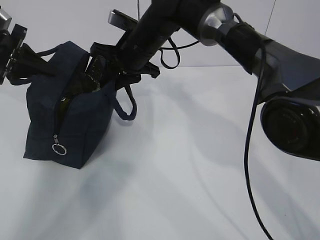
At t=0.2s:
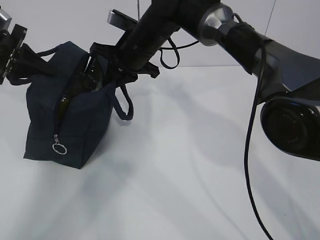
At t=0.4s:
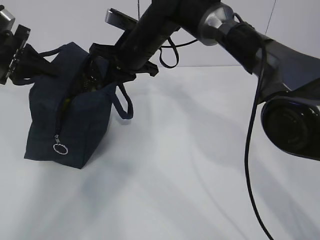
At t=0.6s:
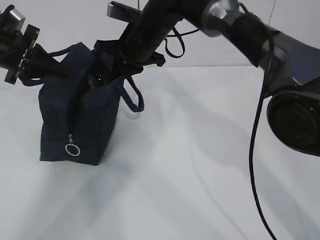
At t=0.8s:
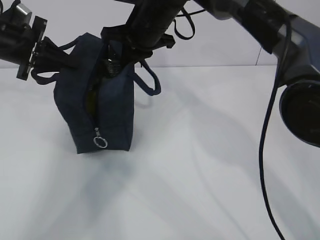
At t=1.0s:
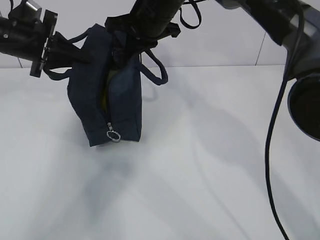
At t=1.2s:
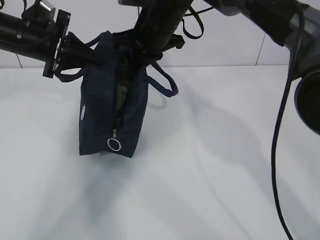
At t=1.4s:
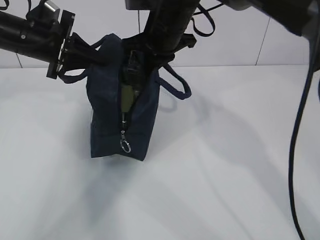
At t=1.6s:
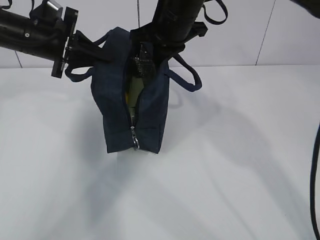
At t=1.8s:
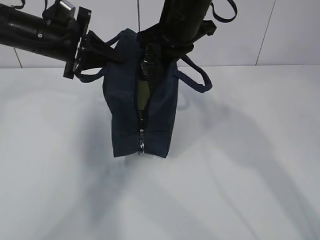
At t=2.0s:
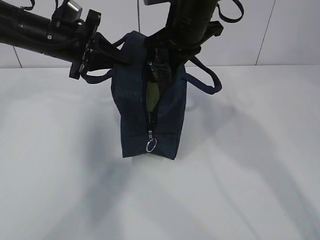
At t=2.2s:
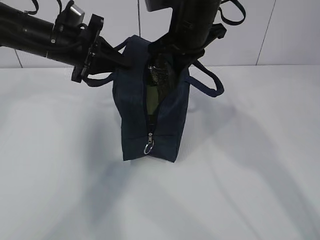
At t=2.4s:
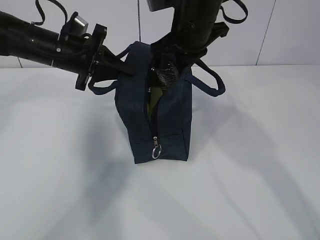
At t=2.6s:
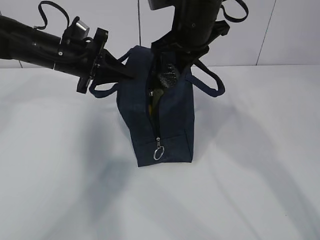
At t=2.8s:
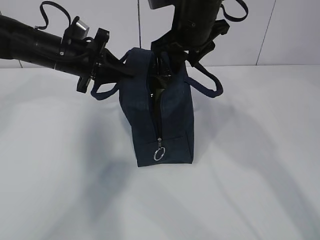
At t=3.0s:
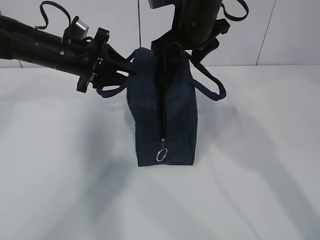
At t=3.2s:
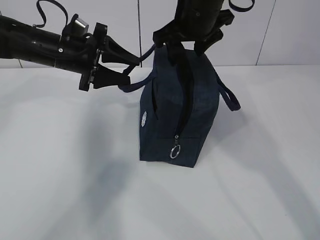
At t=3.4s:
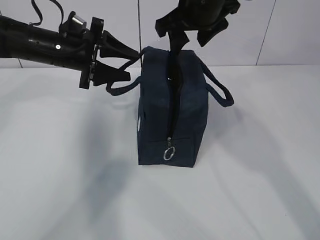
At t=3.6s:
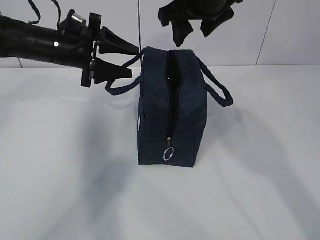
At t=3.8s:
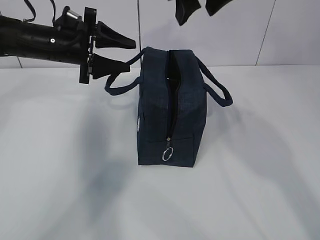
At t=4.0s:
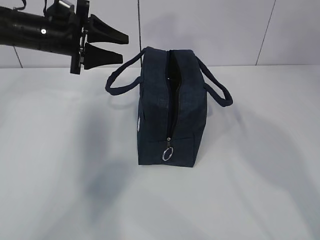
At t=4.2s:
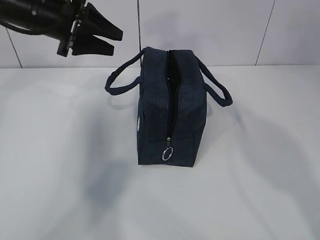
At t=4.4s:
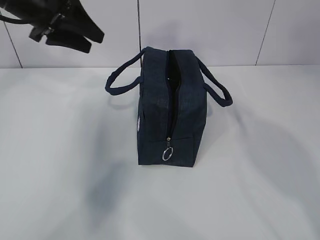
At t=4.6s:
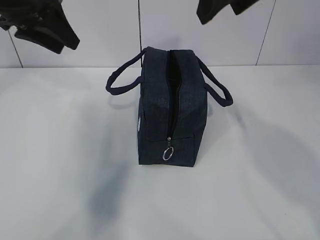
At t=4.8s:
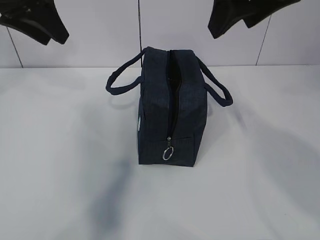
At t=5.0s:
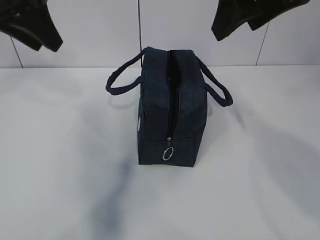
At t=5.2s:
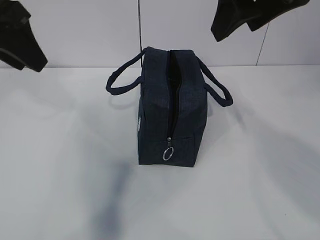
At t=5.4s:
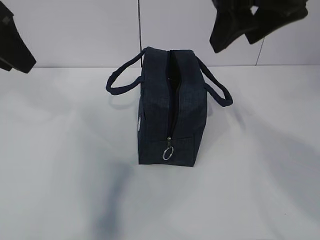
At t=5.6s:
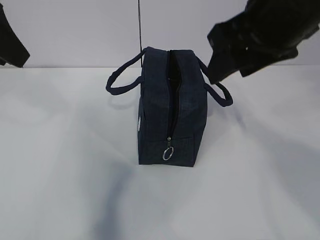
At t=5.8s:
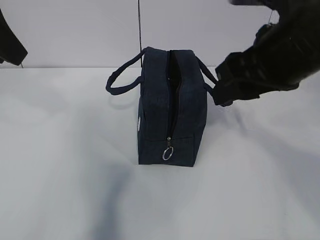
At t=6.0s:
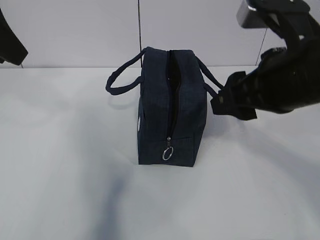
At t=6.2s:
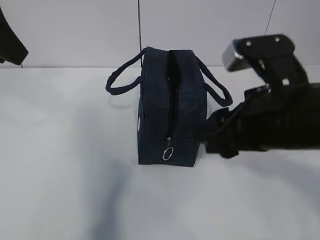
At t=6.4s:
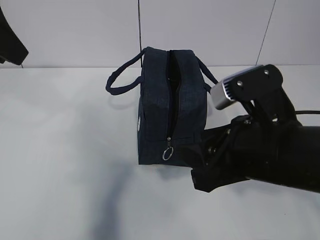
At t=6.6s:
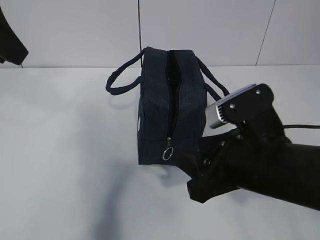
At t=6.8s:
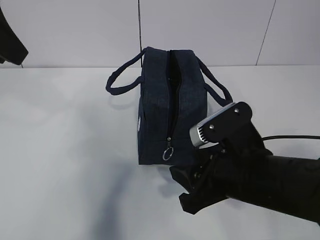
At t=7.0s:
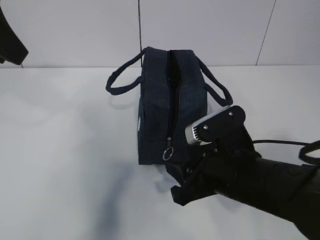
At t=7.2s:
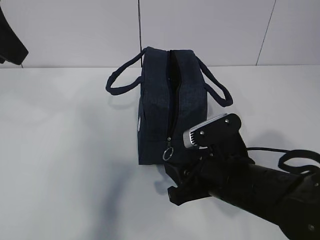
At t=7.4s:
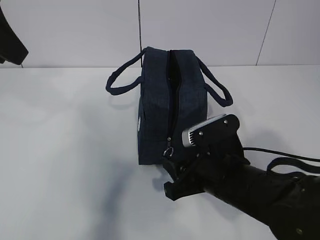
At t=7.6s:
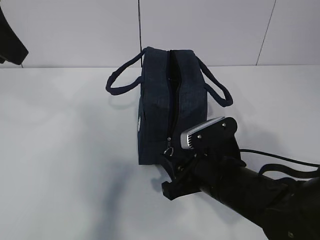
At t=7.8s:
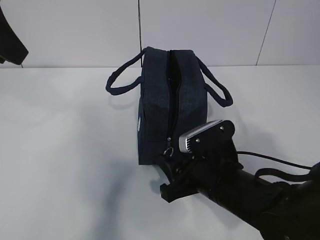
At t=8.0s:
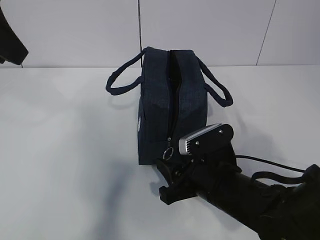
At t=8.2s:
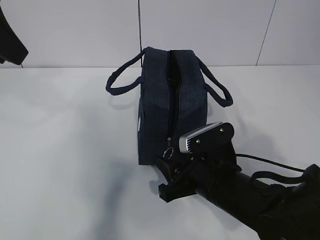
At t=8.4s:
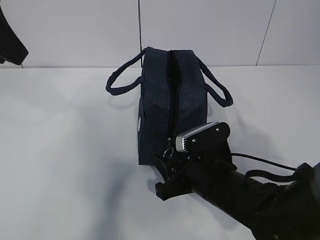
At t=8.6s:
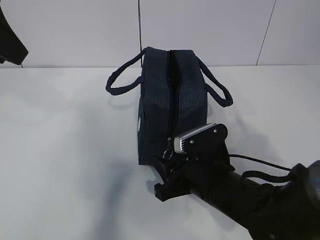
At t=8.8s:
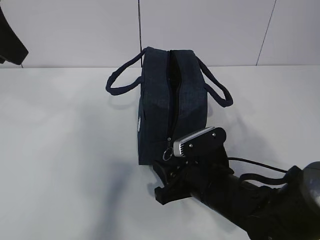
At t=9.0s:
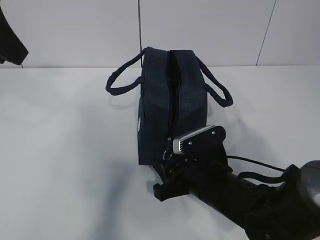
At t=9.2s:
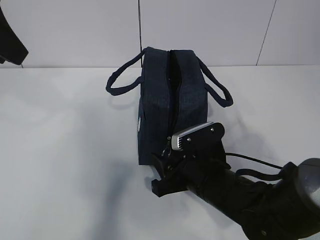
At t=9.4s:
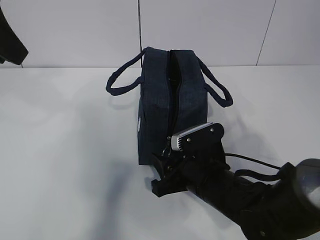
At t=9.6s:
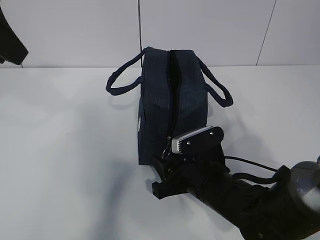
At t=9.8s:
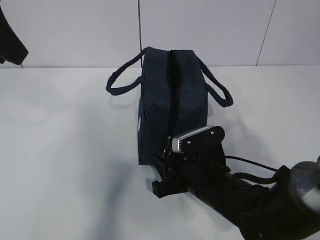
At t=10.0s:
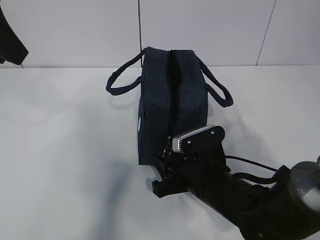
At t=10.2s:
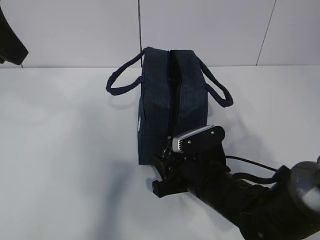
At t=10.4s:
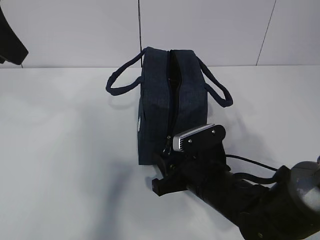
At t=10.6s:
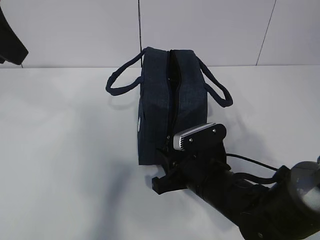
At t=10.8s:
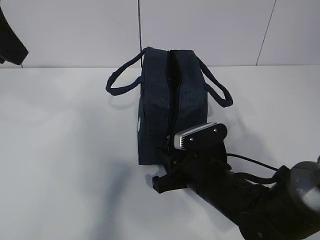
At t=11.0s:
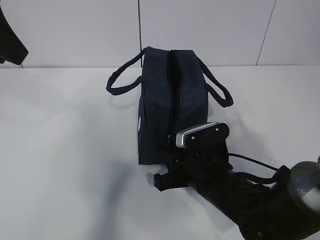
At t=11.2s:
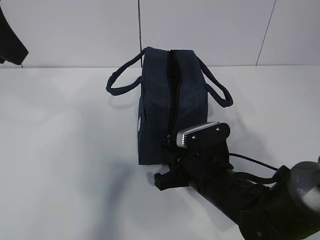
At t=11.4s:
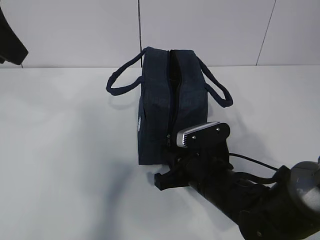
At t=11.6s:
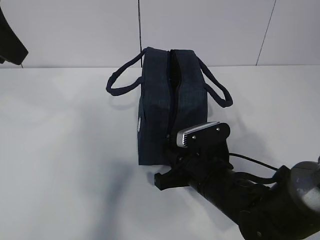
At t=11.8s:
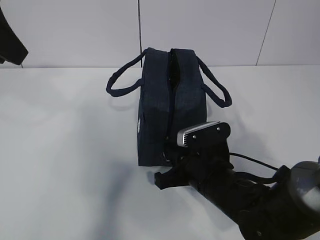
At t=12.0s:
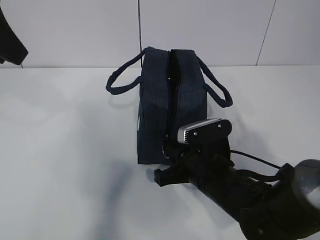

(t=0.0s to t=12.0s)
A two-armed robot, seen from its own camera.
Step, t=0.0s - t=12.0s: Grab the lunch bag with your left hand.
t=0.0s - t=1.6s: The left gripper moves to the right, approximately 10 cm, while the right gripper heads upward and to the right, covering roughly 10 cm, and closes up.
t=1.6s - t=3.0s: The left gripper changes place by roughly 5 cm, and opens its fingers. Meanwhile the right gripper opens.
t=3.0s - t=4.4s: The left gripper goes approximately 10 cm upward; the right gripper travels upward and backward by roughly 15 cm.
t=4.4s - t=6.0s: The right gripper goes some 15 cm downward and backward; the left gripper moves backward and upward, approximately 15 cm.
t=6.0s - t=7.6s: The right gripper moves downward, about 20 cm.
t=7.6s - t=9.0s: The grippers move only a little.
t=9.0s - t=10.4s: The two grippers keep their place.
t=10.4s - t=12.0s: The right gripper closes.

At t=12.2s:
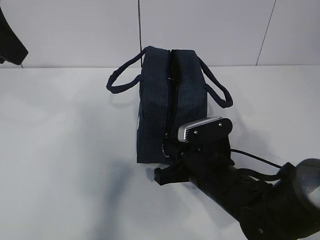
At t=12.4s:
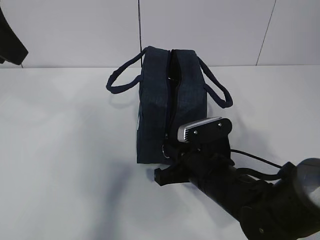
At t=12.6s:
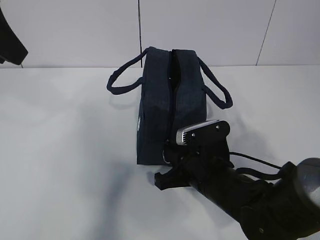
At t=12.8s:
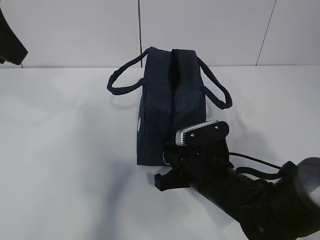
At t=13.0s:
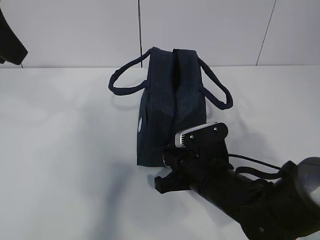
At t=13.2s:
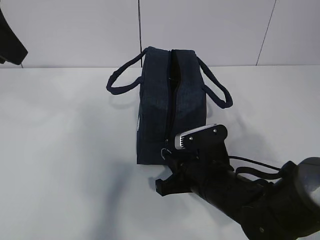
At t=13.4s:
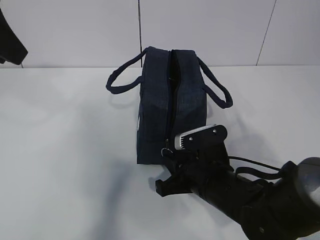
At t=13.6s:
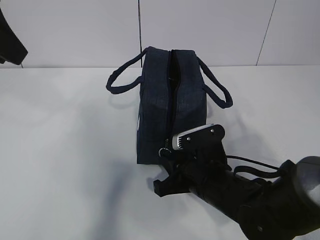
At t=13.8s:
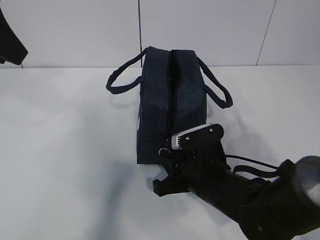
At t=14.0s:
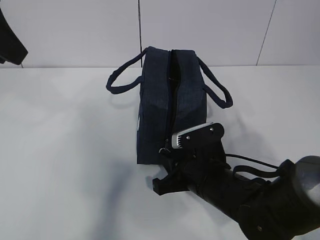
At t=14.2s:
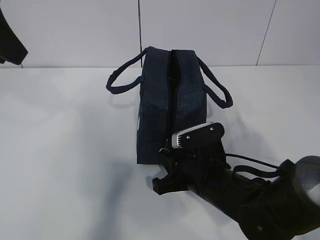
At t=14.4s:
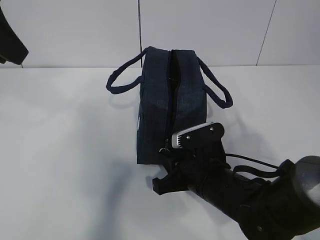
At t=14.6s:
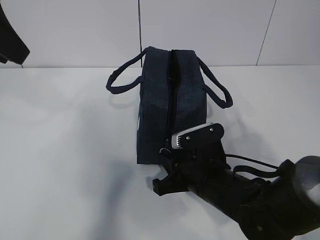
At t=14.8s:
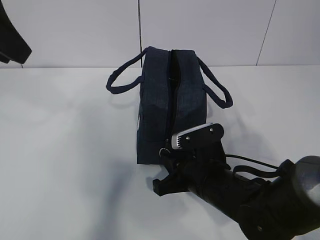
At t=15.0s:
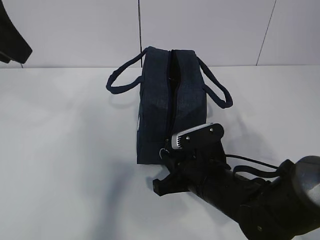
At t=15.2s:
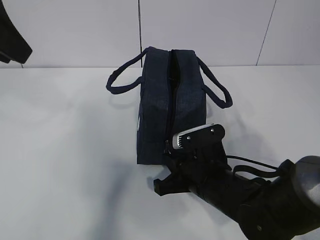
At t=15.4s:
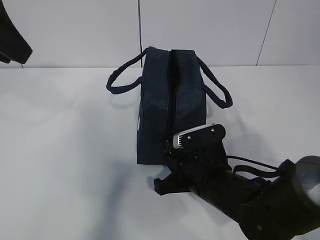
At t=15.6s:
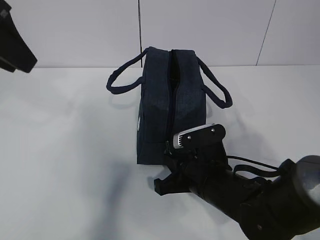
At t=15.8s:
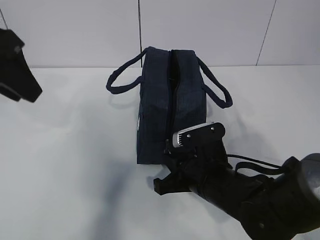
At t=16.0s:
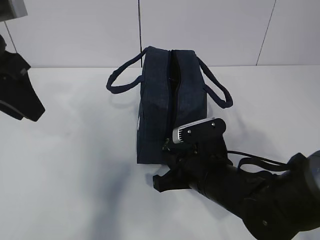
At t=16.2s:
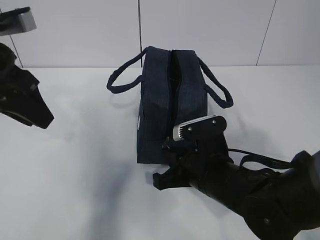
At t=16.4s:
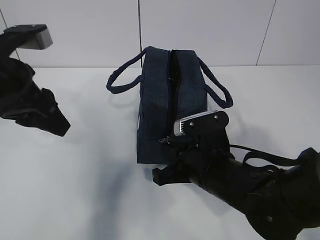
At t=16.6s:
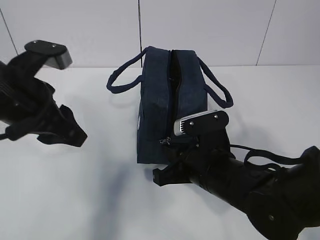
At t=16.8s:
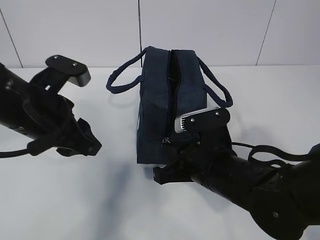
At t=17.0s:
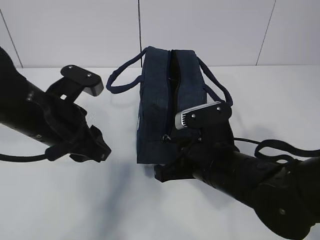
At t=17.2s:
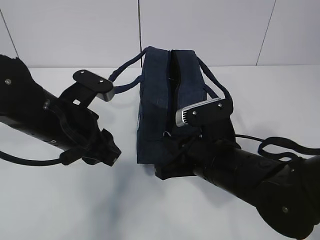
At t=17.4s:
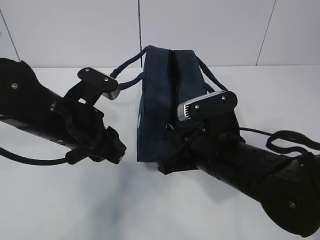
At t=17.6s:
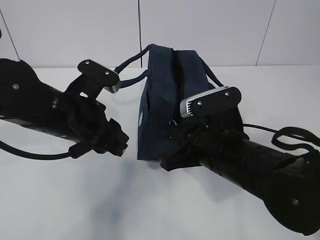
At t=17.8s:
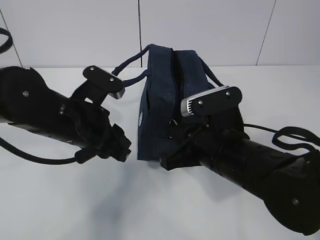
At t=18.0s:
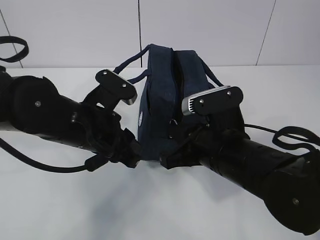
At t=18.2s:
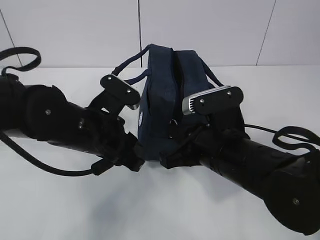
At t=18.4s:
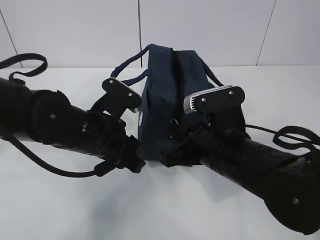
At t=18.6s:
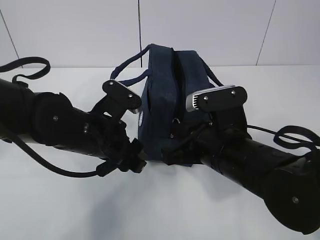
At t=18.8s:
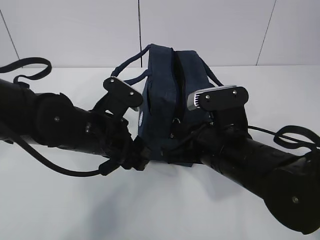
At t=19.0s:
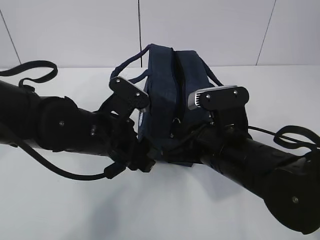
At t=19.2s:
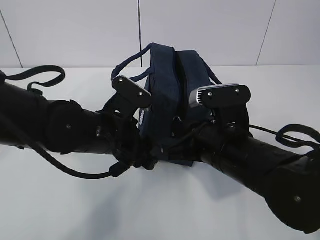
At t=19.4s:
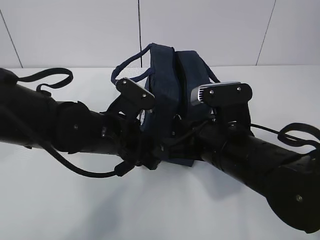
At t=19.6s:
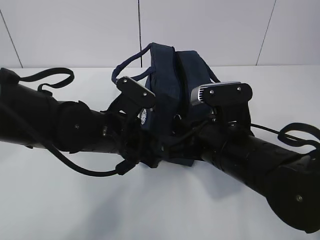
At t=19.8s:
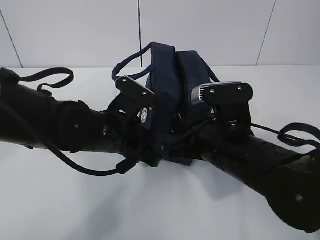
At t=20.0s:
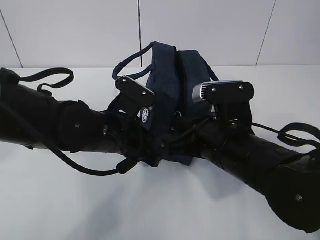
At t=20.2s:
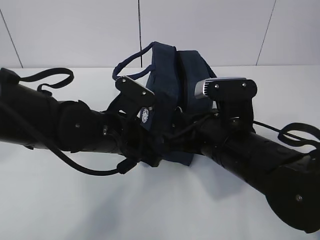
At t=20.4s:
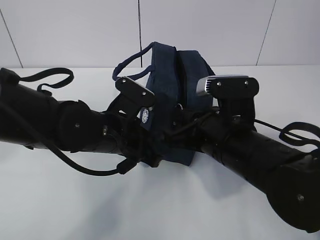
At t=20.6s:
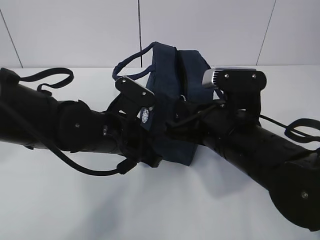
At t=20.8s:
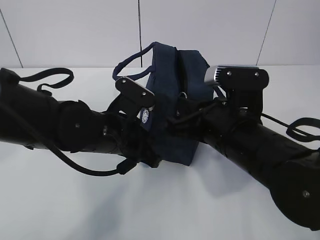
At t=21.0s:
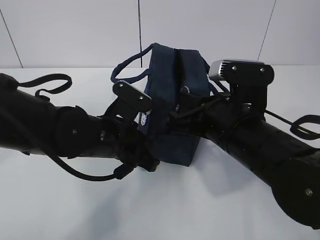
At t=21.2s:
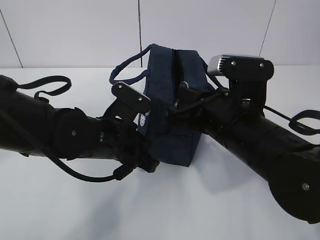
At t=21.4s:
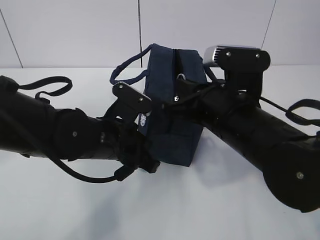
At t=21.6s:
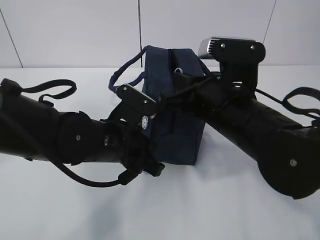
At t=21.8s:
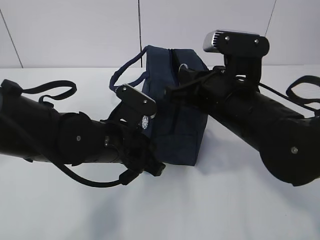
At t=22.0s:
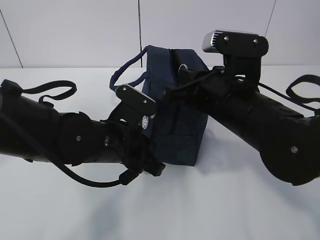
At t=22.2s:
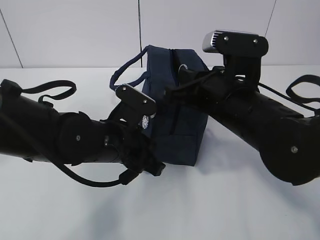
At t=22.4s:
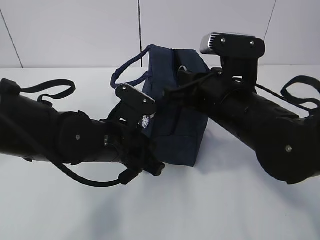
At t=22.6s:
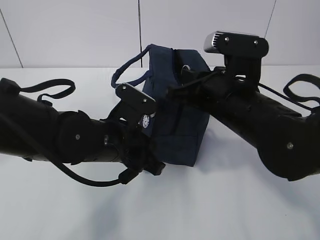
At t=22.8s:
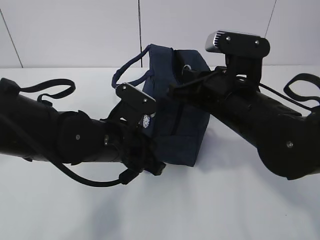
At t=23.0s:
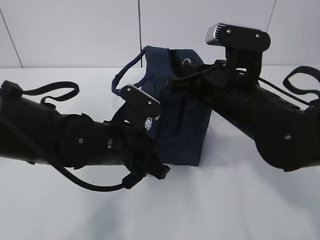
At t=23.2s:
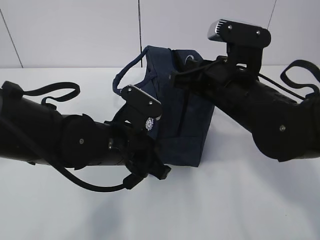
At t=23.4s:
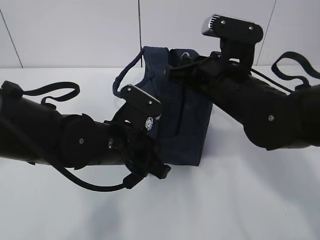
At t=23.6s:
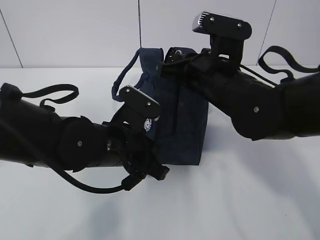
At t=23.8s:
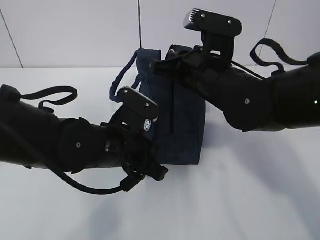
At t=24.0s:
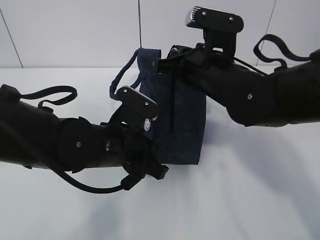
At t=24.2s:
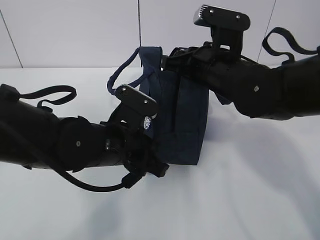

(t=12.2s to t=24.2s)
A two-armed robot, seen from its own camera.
Step, t=12.2s - t=21.4s: Grab the lunch bag with your left hand.
t=12.2s - t=13.8s: The grippers stay close to where they were, moving slightly.
t=13.8s - t=15.2s: Both grippers stay put.
t=15.2s - t=16.6s: The left gripper shifts approximately 15 cm downward.
t=16.6s - t=18.2s: The left gripper heads to the right and downward, covering some 10 cm.
t=18.2s - t=19.8s: The left gripper closes its fingers.
t=19.8s - t=22.6s: The grippers make only small movements.
t=22.6s - t=24.2s: The right gripper travels forward by some 5 cm.
